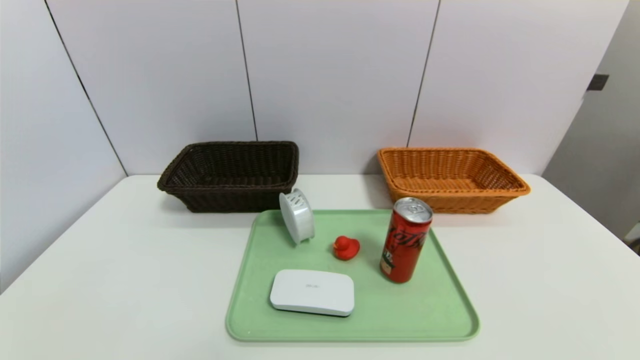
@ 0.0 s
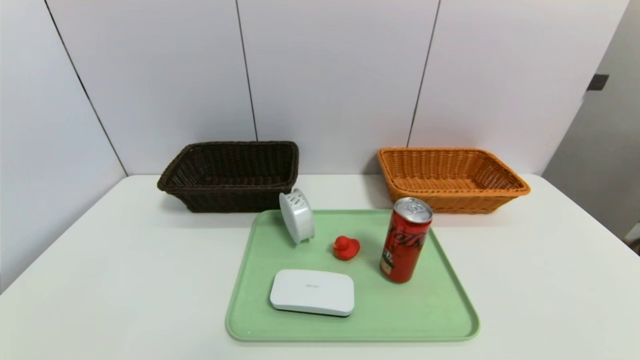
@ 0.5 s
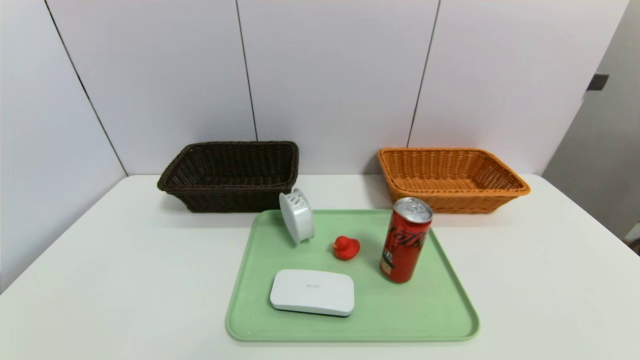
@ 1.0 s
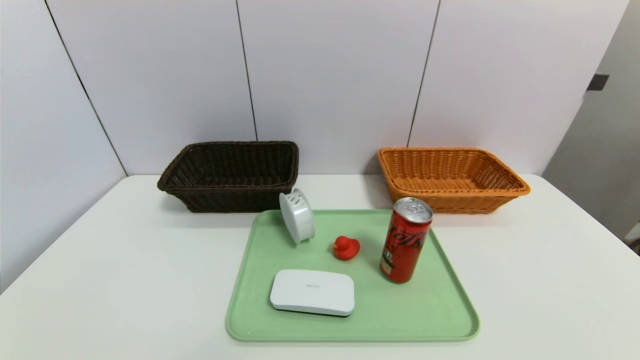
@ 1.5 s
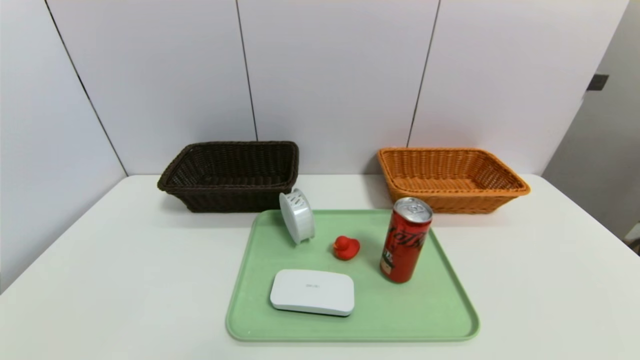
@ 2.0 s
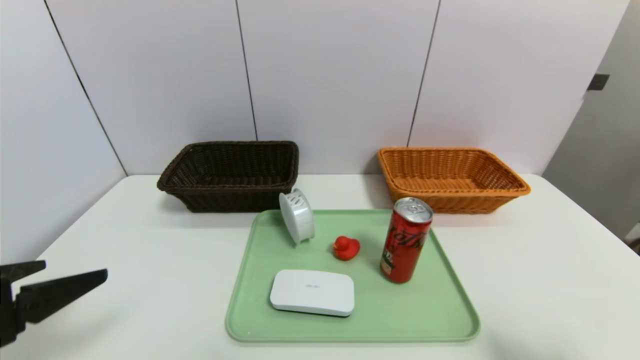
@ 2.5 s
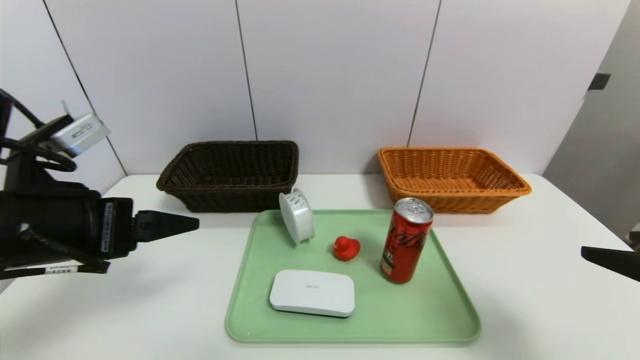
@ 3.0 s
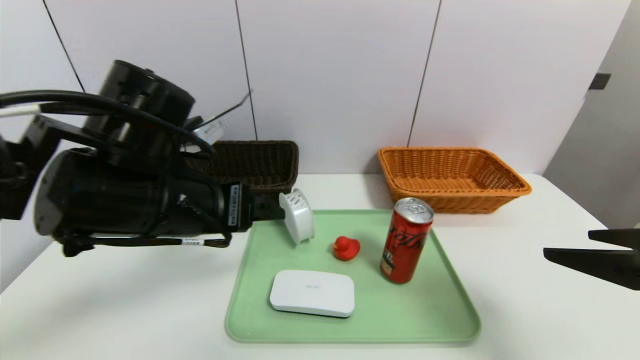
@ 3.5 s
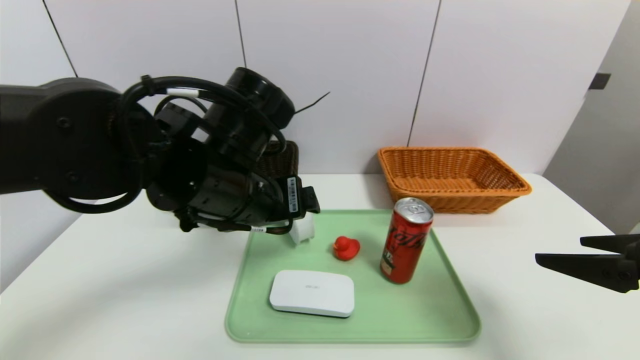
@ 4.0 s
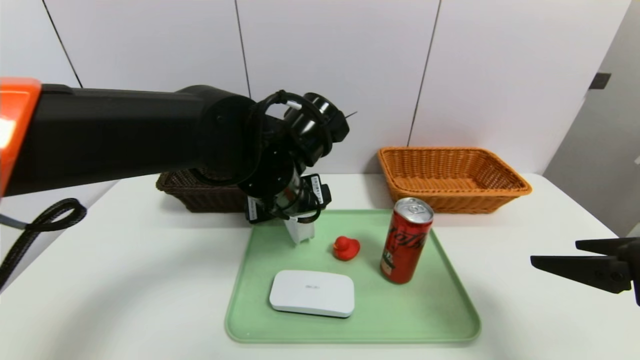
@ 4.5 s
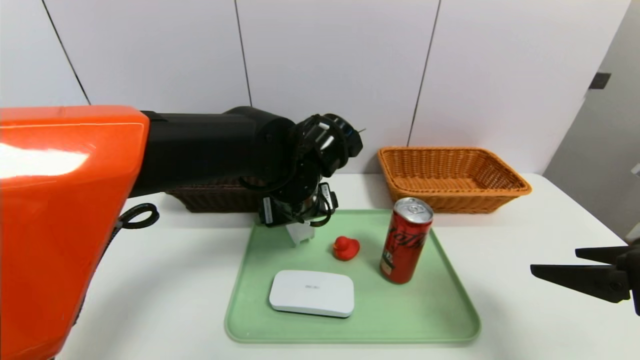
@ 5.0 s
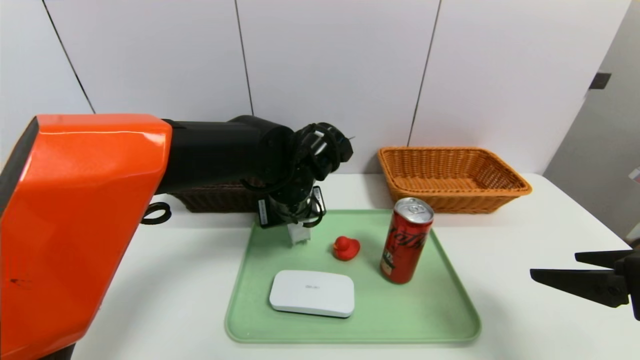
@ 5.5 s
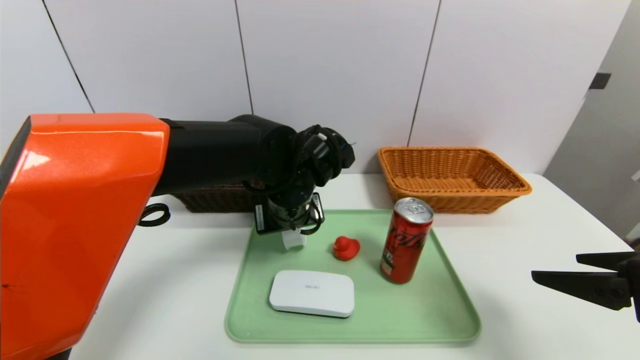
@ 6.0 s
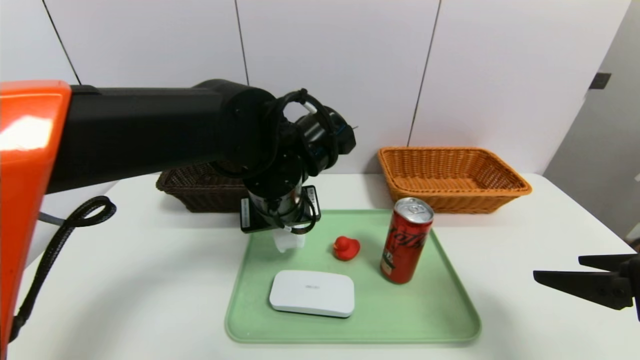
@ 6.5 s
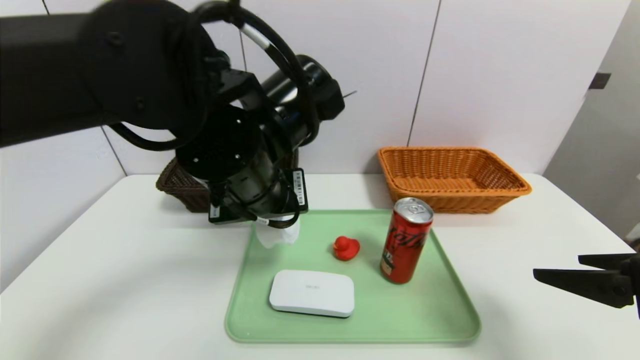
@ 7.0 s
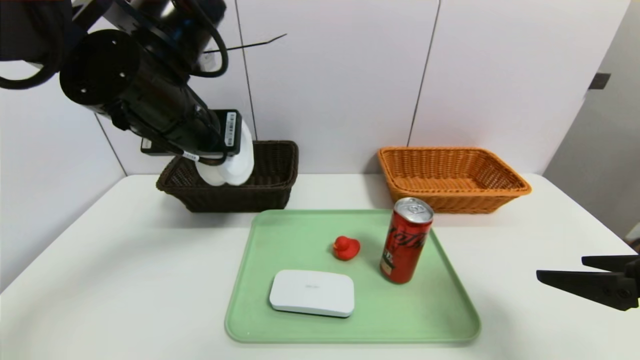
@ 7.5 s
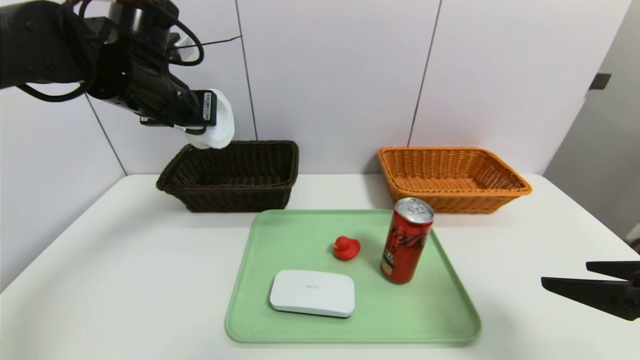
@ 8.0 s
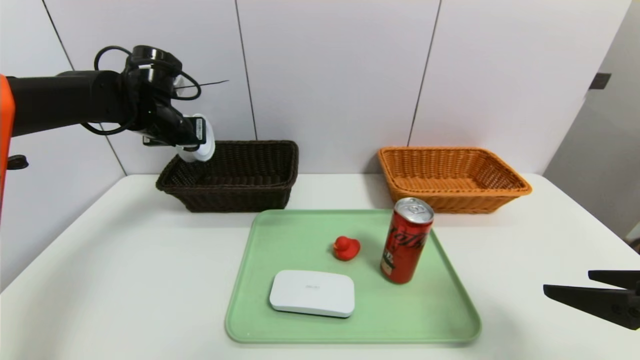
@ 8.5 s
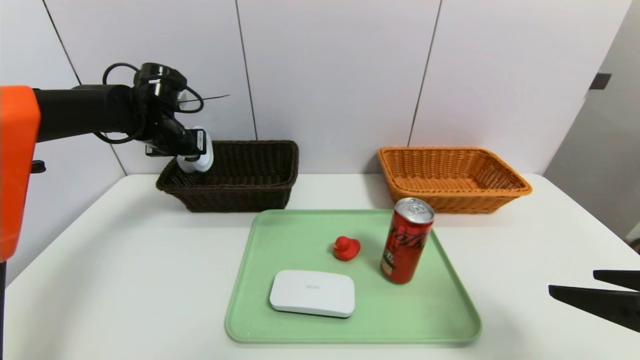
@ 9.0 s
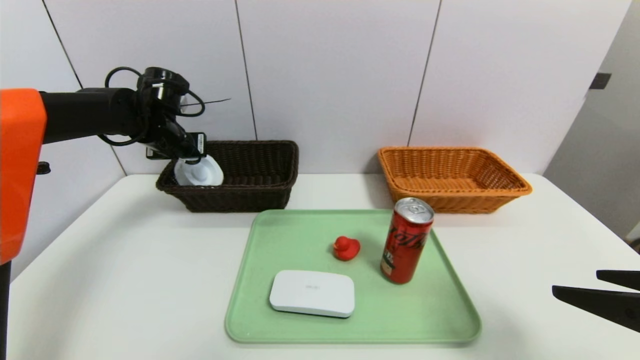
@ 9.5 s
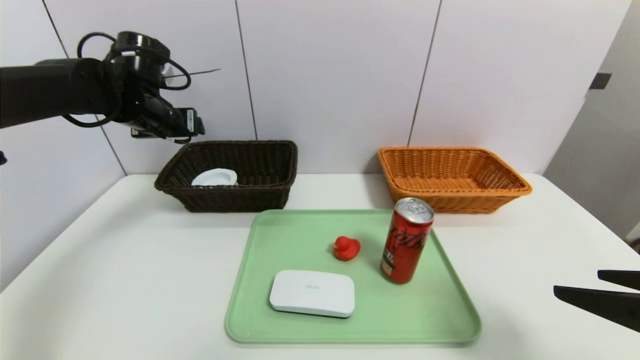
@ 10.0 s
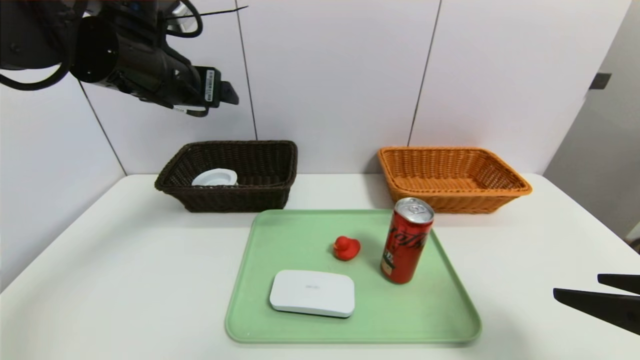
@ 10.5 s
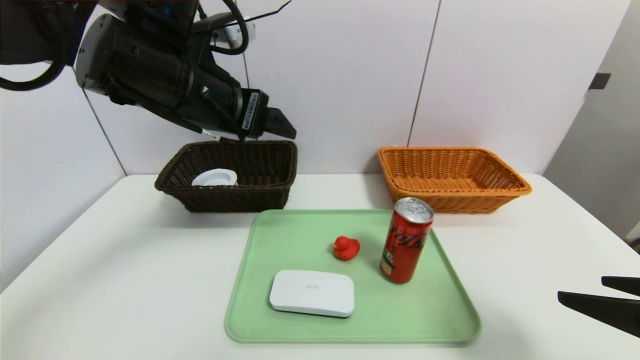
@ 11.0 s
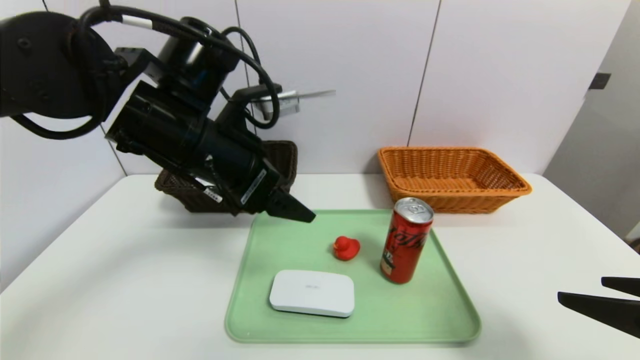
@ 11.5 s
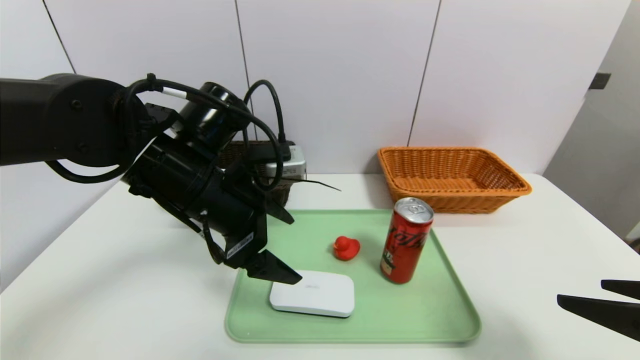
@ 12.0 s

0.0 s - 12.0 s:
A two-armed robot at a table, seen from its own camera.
Task of the whole recording: place the food in the right basket with the right gripper, and place the non food items in the left basket with the left gripper.
Step, 0.0 s - 9.5 s: Grasp the tape and put it in the left basket.
2.0 s - 4.0 s: The left gripper travels forward, to the right and upward by approximately 35 cm. Meanwhile the right gripper shifts about 20 cm forward and upward.
4.0 s - 6.0 s: The left gripper heads forward, downward and to the right, covering roughly 10 cm, and closes.
6.0 s - 8.0 s: The left gripper goes about 20 cm to the left and upward.
8.0 s - 10.0 s: The left gripper goes some 10 cm forward and to the left, and opens its fingers.
10.0 s - 12.0 s: The left gripper travels backward and to the right by approximately 20 cm.

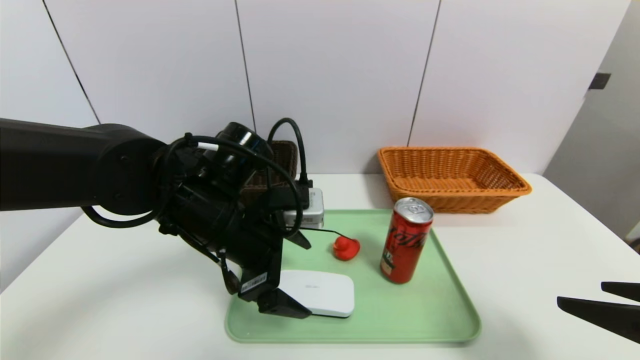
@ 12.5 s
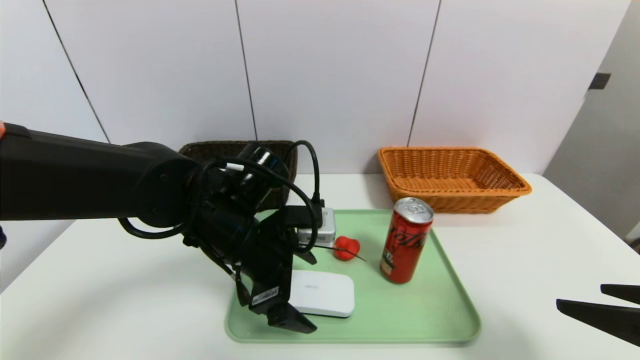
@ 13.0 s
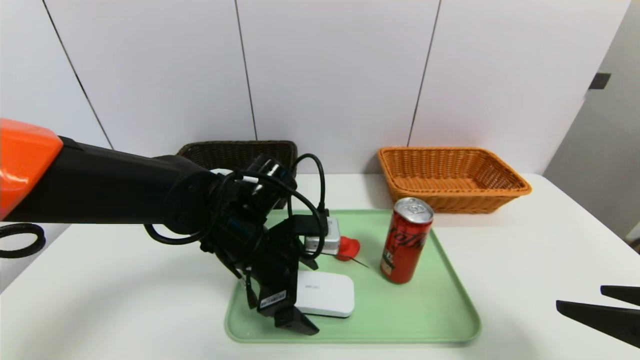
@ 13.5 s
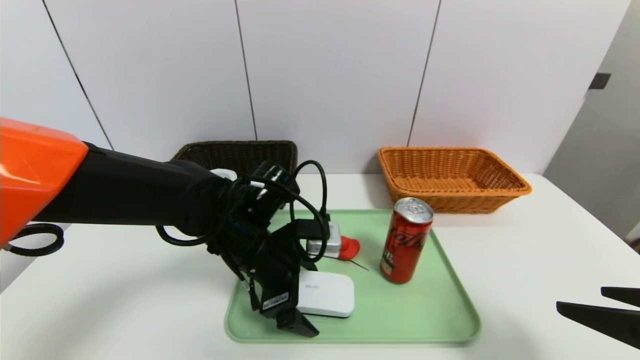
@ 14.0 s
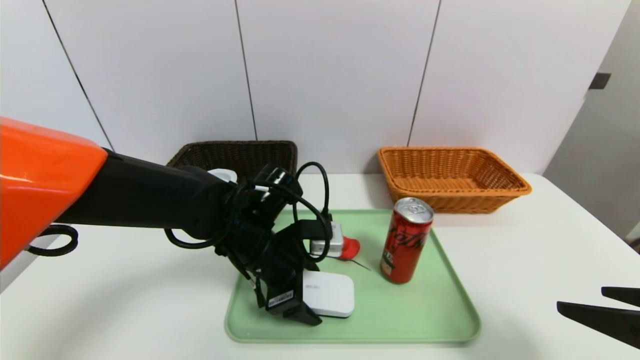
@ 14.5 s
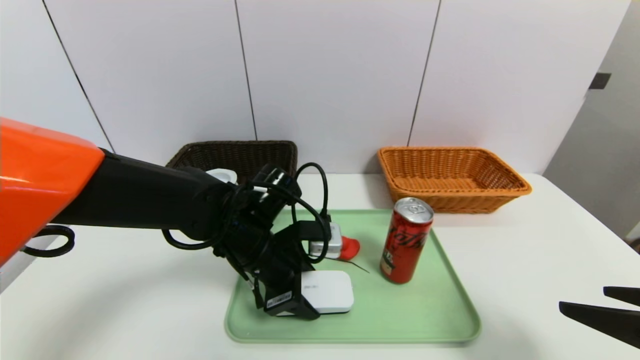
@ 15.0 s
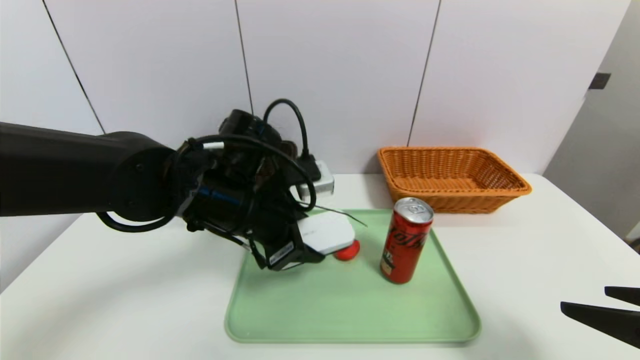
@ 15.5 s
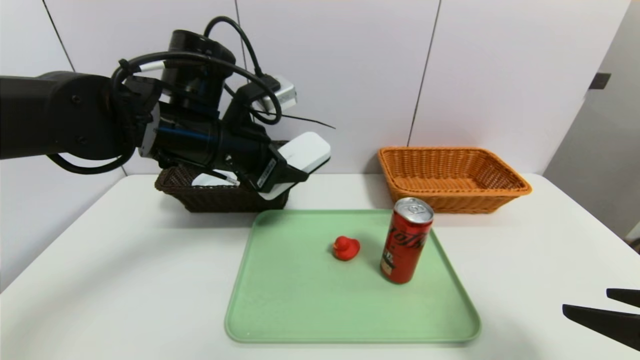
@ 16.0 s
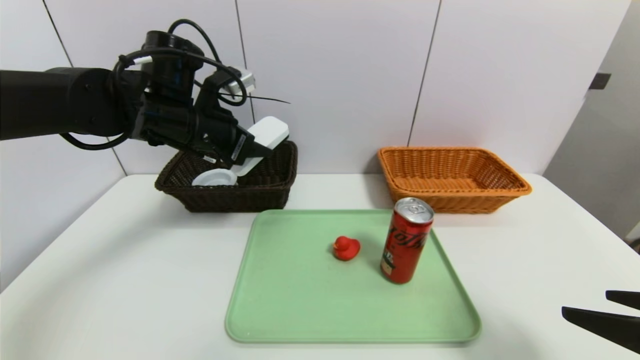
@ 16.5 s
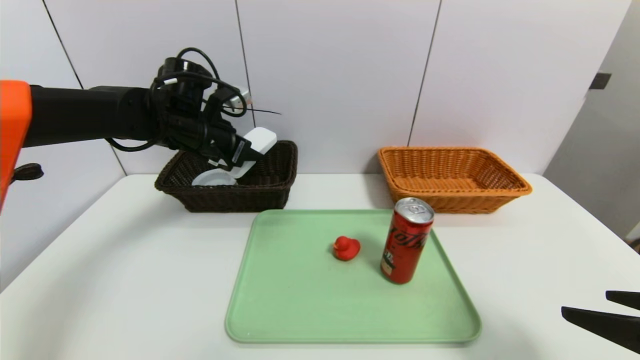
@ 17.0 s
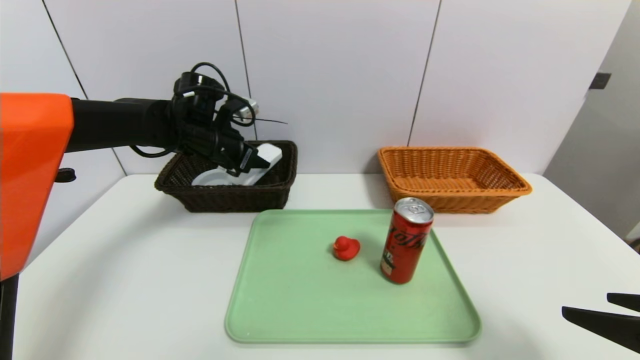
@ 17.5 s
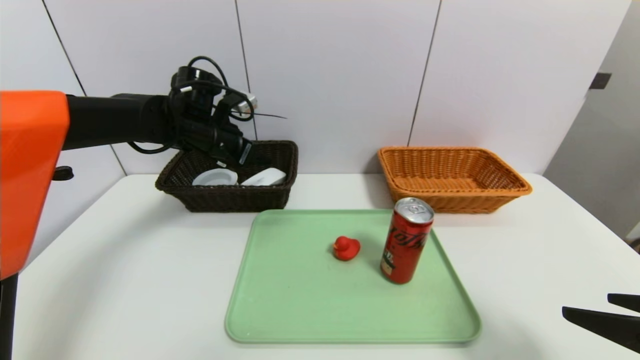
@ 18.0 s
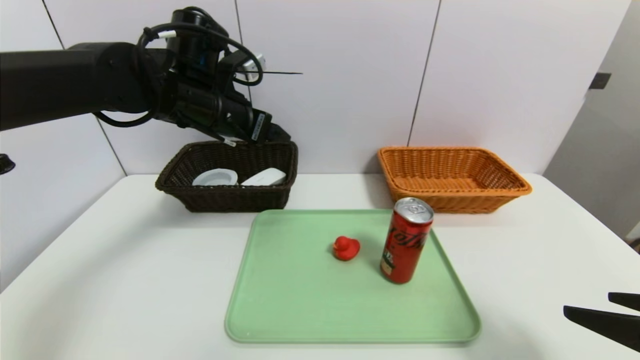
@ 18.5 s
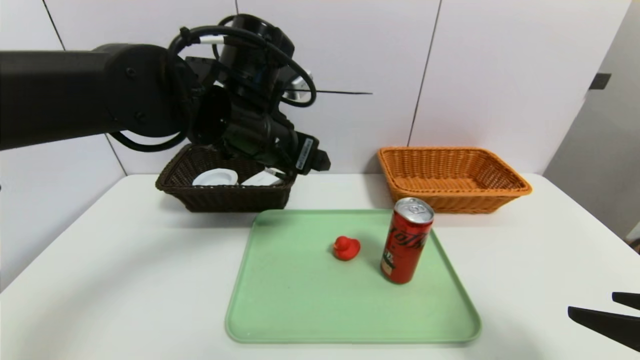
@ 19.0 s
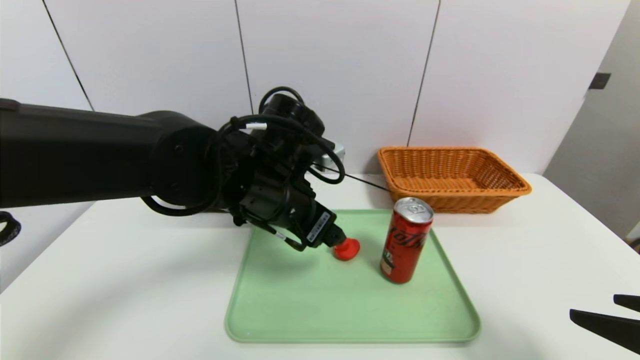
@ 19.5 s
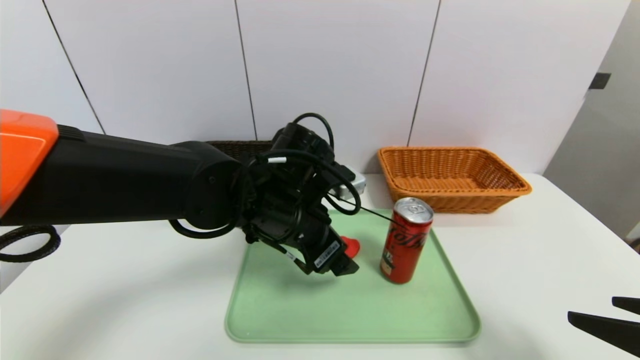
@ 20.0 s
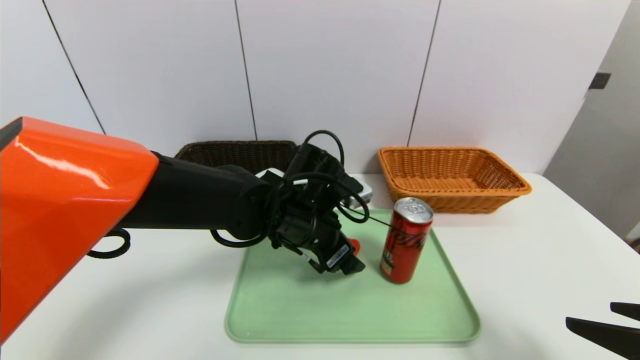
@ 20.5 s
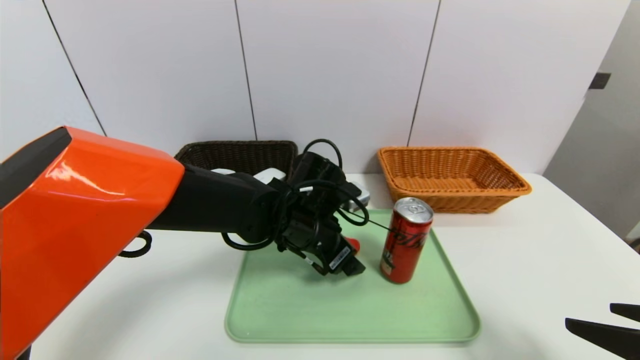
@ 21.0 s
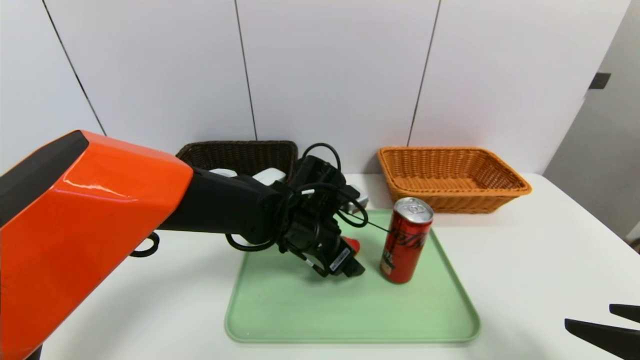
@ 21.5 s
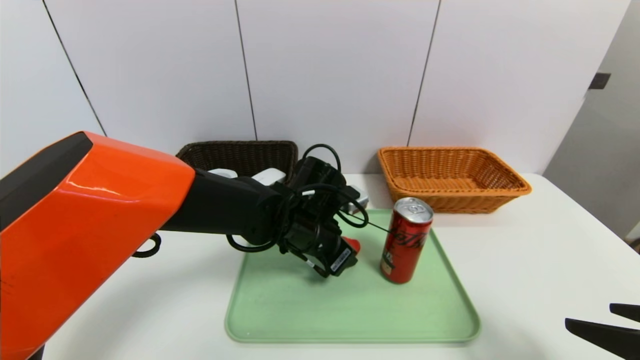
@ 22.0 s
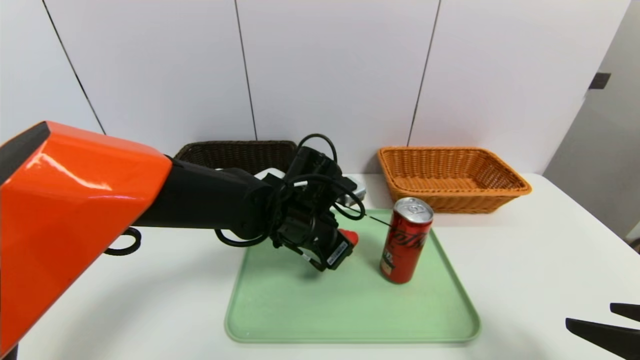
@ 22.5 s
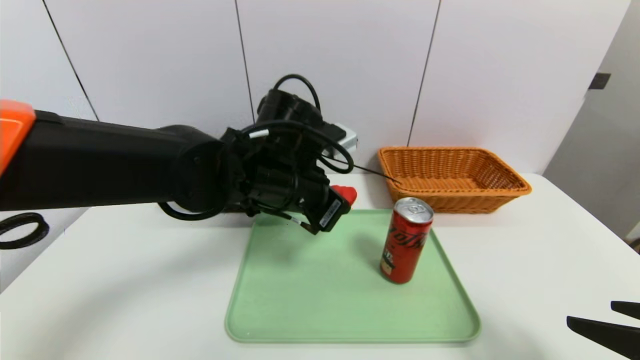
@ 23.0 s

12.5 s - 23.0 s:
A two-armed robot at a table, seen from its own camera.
Task of the whole recording: place the food in the right basket with the right gripper, and place the non food items in the left basket with the left gripper.
Step, 12.5 s - 18.0 s: Grasp the white eraser and put it in the left basket.
12.5 s - 14.5 s: The left gripper goes some 5 cm downward, and closes up.
14.5 s - 16.5 s: The left gripper is displaced upward, to the left and forward by approximately 20 cm.
16.5 s - 19.0 s: The left gripper is displaced to the right and backward by about 15 cm, and opens.
19.0 s - 21.0 s: The left gripper goes some 15 cm downward.
21.0 s - 23.0 s: The left gripper is displaced upward by approximately 10 cm, and closes.
